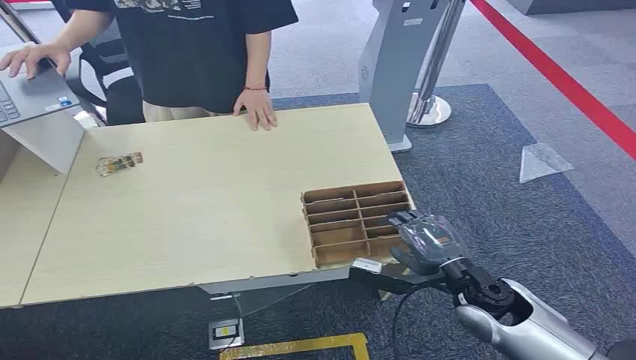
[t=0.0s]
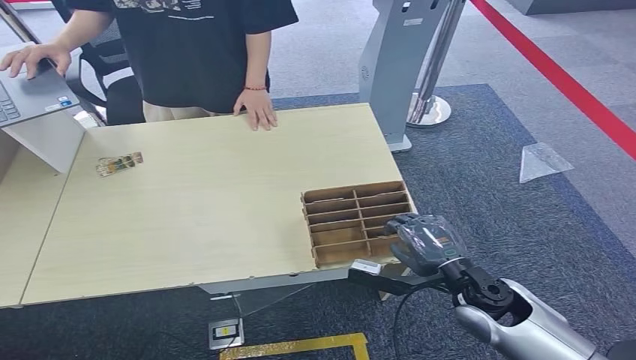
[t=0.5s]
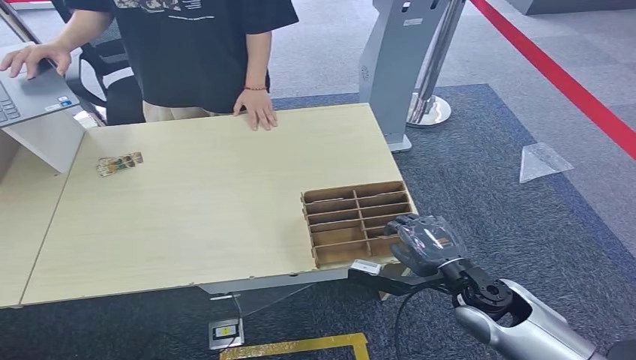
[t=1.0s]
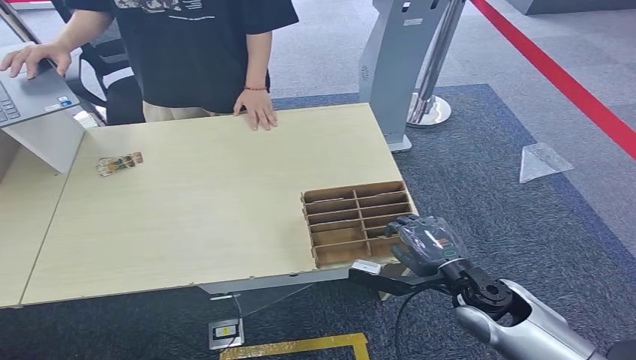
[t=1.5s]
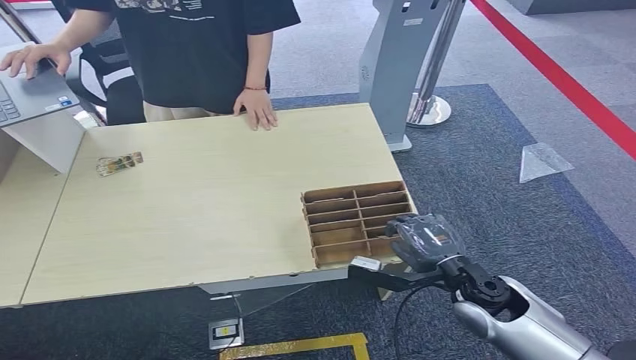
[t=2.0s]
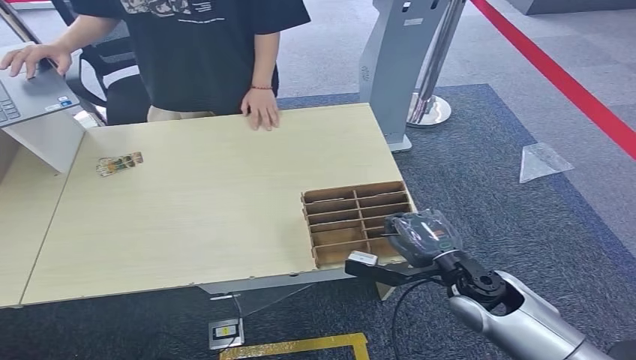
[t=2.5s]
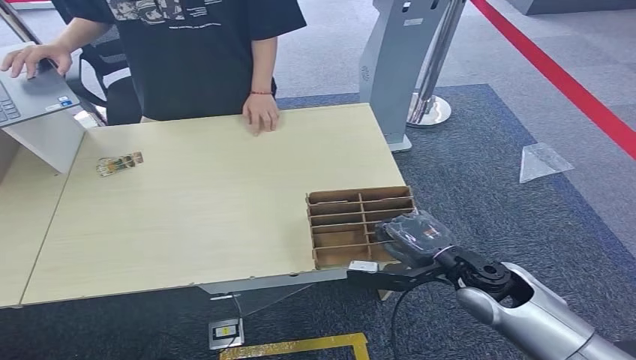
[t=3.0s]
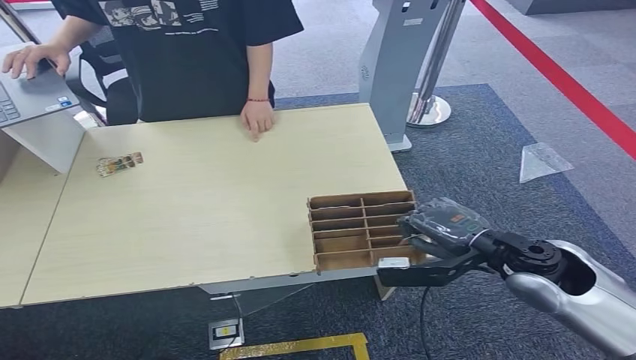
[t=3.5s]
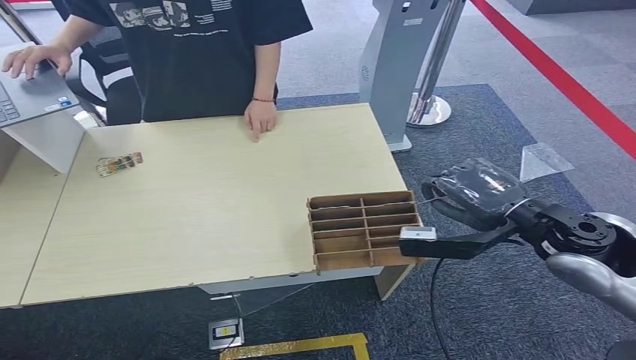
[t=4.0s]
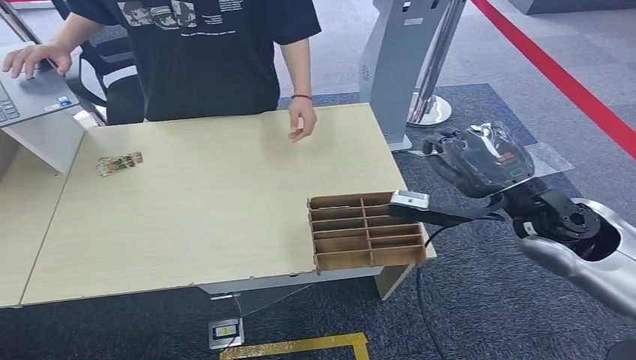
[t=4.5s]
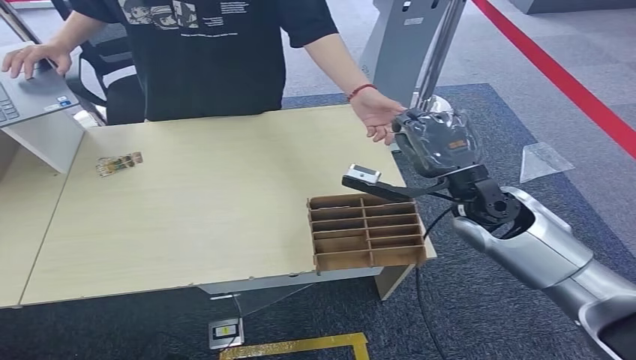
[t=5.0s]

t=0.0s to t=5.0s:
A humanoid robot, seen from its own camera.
Step, t=0.0s to t=4.0s: Pick up the room card from the card holder.
Step, t=4.5s to t=5.0s: Hand the room card to the target.
t=2.5s to t=5.0s: The right hand goes about 15 cm upward and forward.

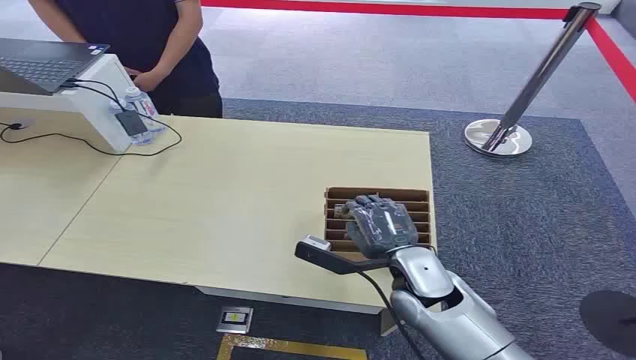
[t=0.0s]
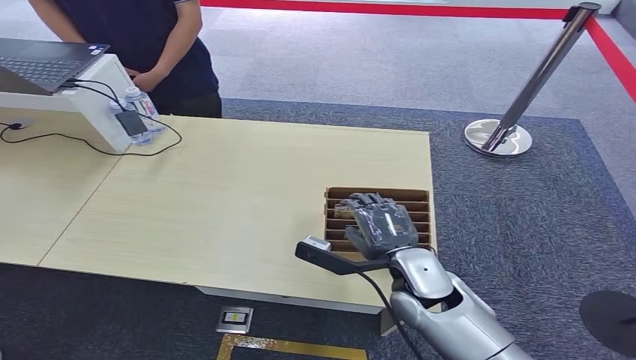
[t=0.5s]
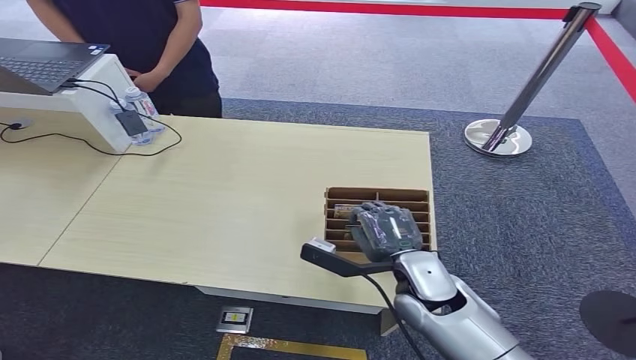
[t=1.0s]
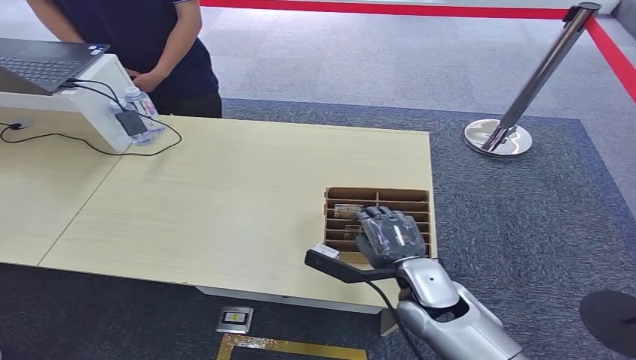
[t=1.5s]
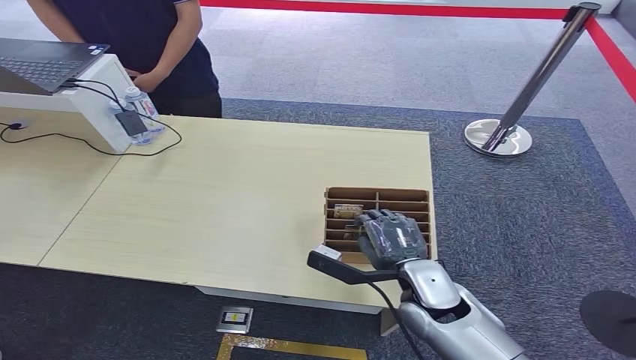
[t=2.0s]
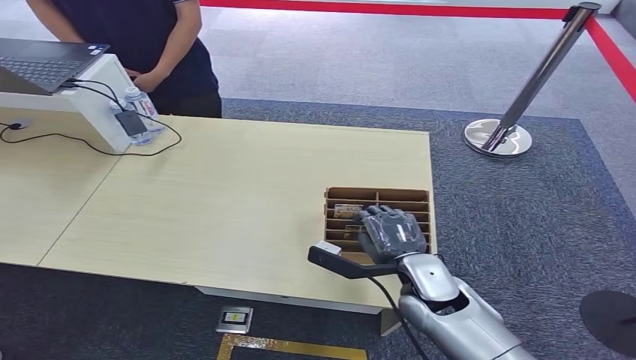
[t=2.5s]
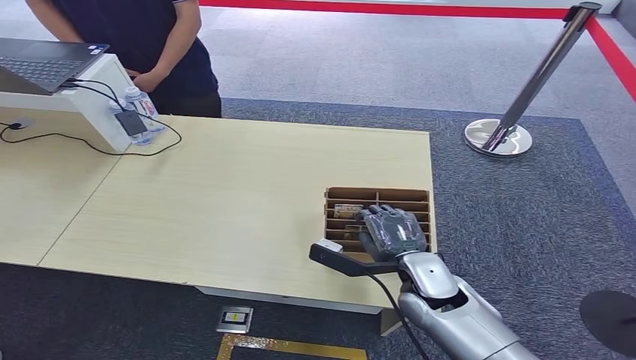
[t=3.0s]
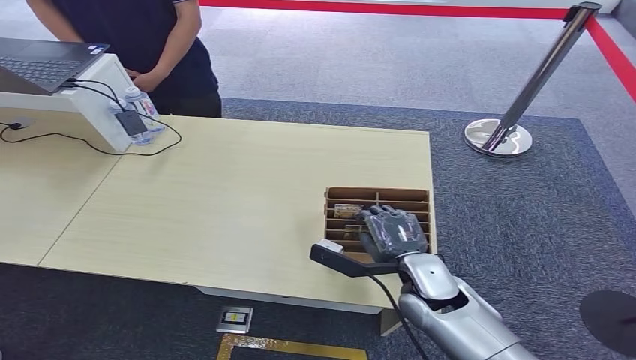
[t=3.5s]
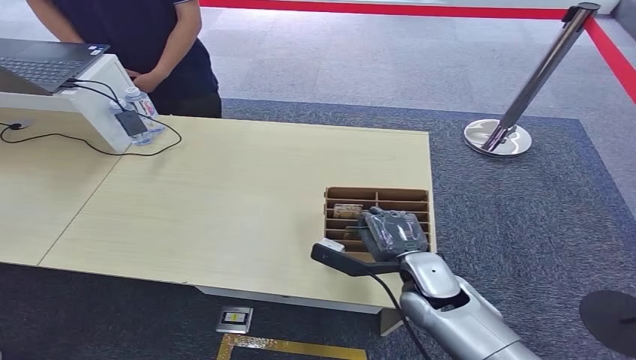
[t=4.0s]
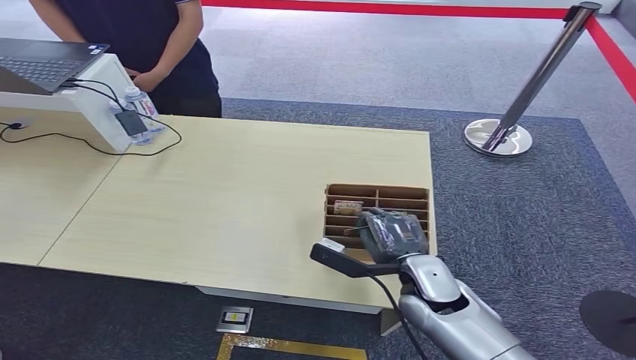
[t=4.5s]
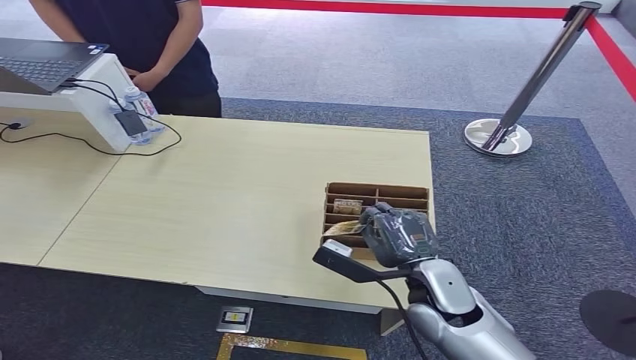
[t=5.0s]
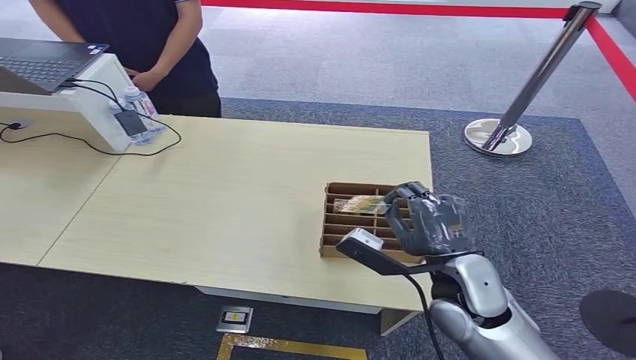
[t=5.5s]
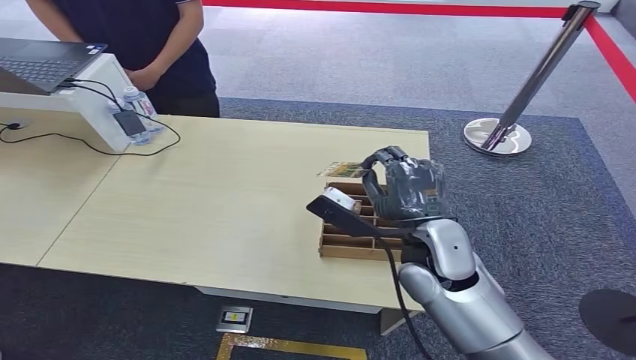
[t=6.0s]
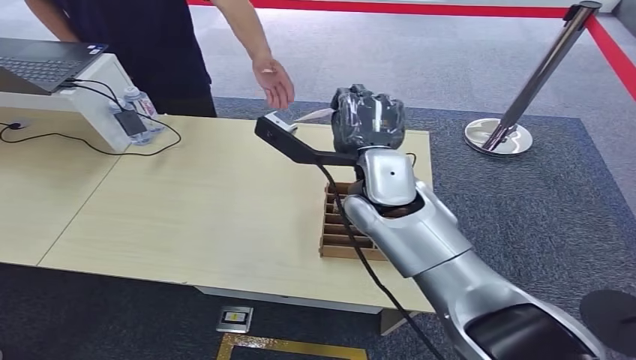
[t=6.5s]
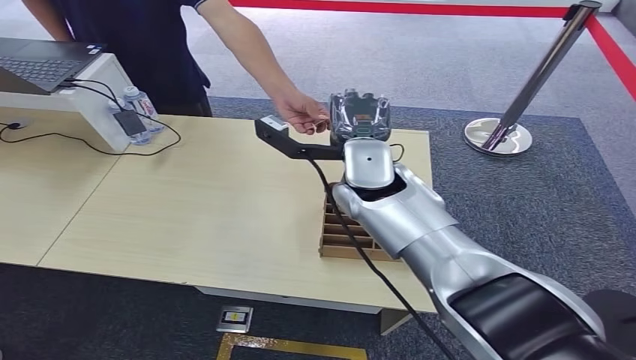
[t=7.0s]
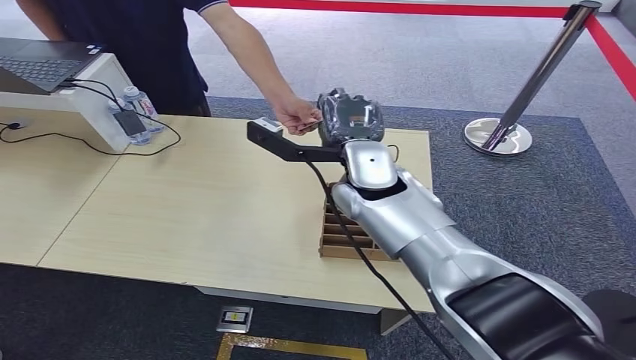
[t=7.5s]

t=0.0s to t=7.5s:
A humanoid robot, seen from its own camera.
Step, t=0.0s to t=5.5s: Pick up the room card from the card holder.
Step, t=6.0s to t=7.5s: Hand the room card to the target.
t=2.0s to t=4.0s: The hands make only small movements.
t=4.0s to t=5.5s: The right hand is displaced upward by approximately 5 cm.
t=5.5s to t=7.5s: The right hand goes approximately 25 cm forward, to the left and upward.
